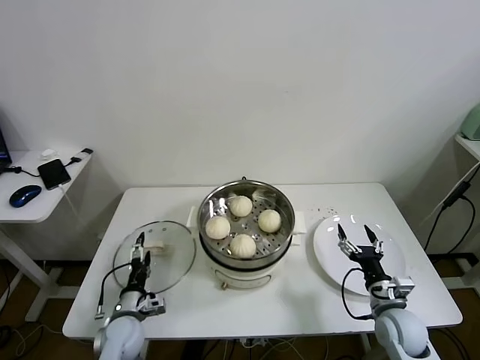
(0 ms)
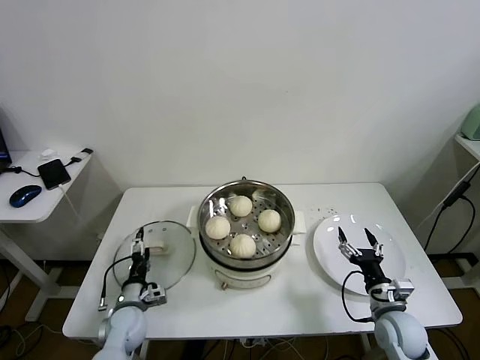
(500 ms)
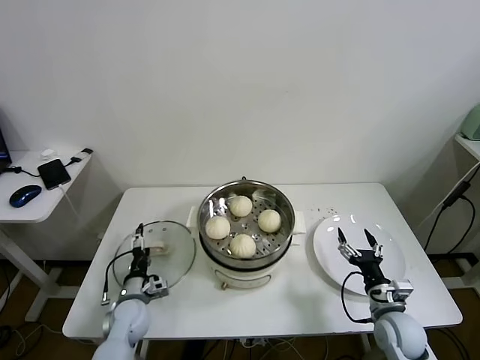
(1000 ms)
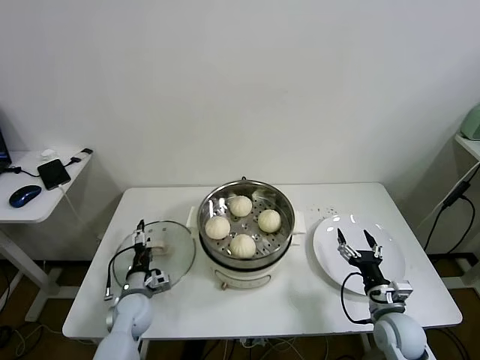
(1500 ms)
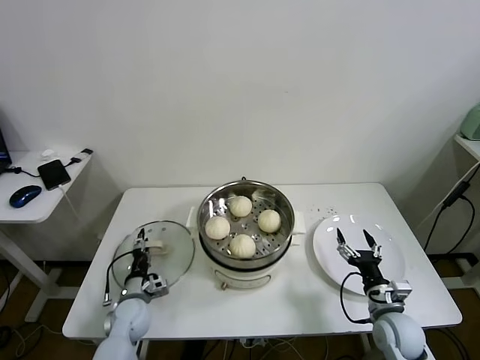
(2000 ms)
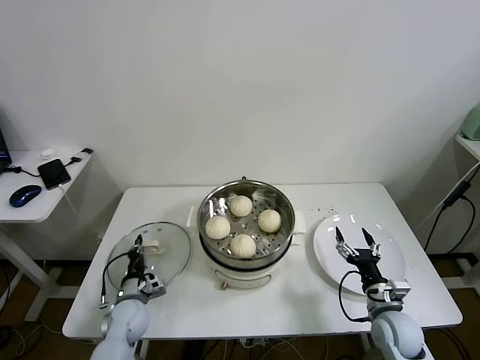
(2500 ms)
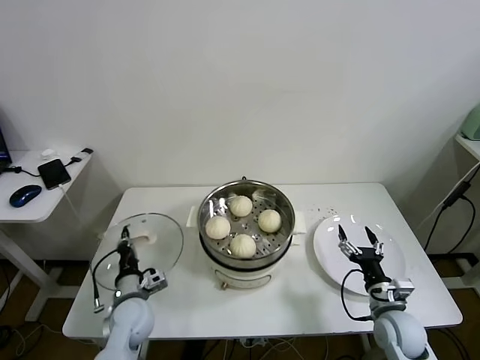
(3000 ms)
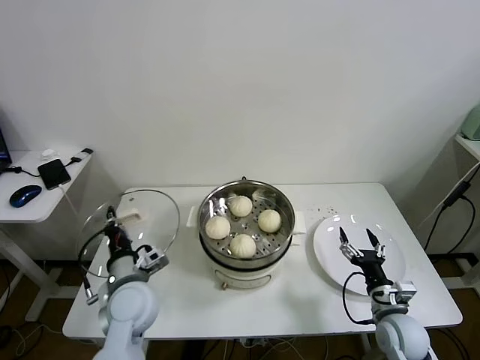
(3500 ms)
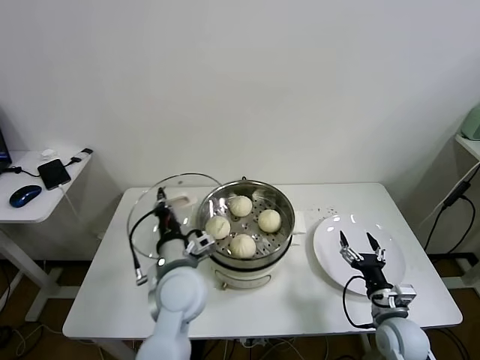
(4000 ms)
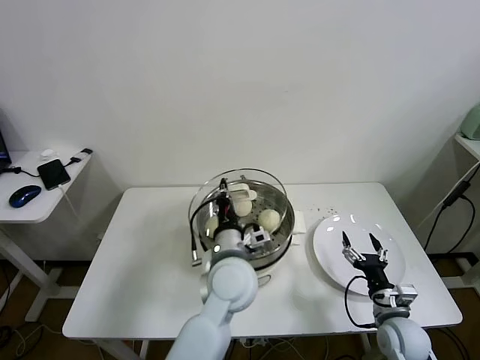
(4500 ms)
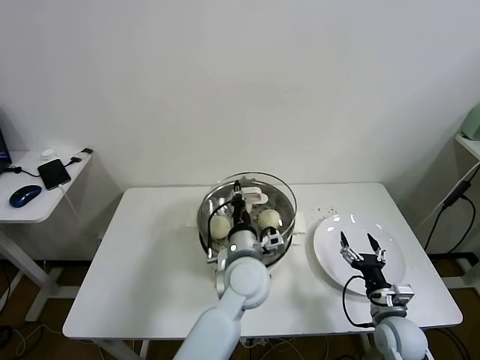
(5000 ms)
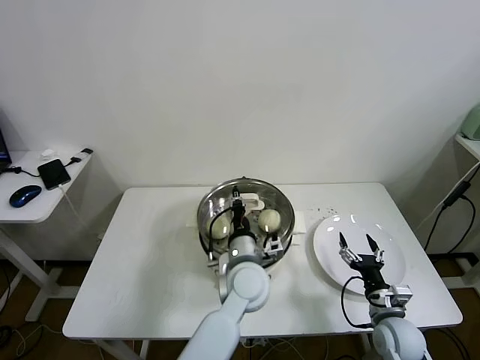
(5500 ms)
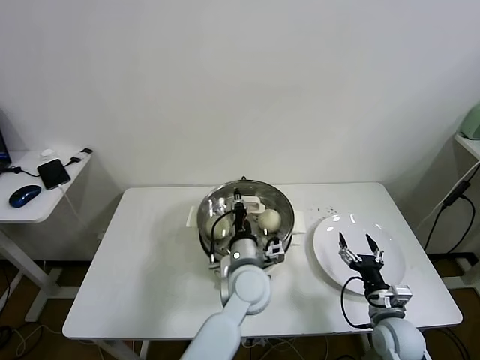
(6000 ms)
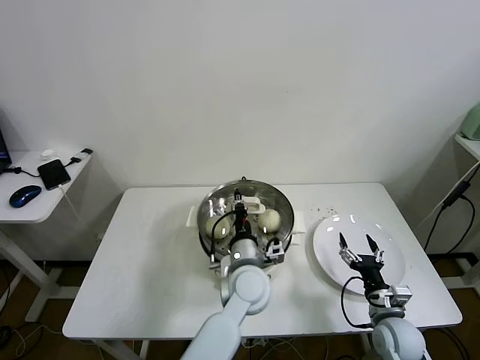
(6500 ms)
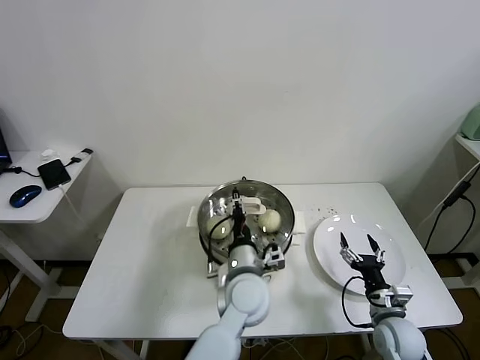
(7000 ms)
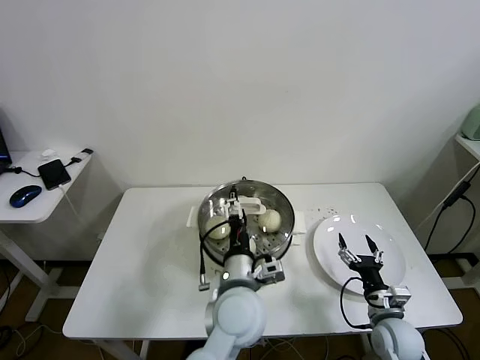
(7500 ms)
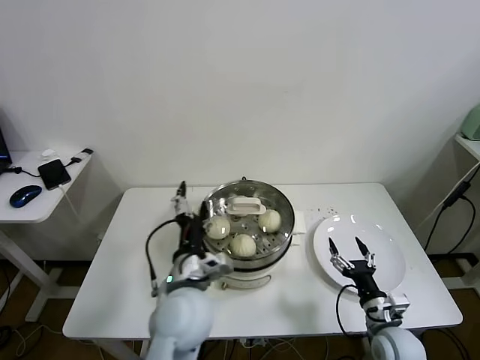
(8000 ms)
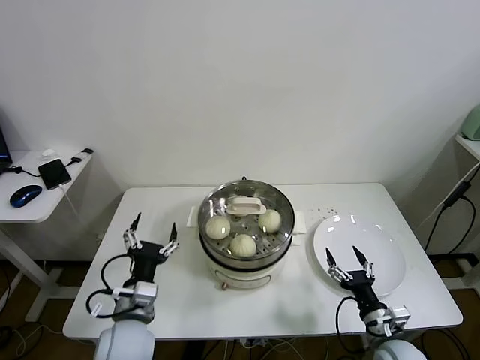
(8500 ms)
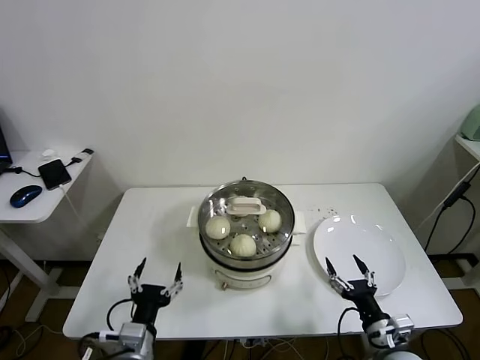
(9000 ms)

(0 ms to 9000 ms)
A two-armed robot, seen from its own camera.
Task of the whole recording: take steamed baozi put them in steamer.
Step, 0 ms - 2000 ms: Grasp the pot lid with left gripper.
Step, 2500 ms - 6500 ms: Place the pot lid on the steamer with left gripper.
0 ms - 2000 ms: The left gripper moves roughly 5 cm, and closes.
2000 ms - 4500 ms: The left gripper heads to the right and upward, covering approximately 35 cm, and closes up.
4500 ms - 7000 ms: The left gripper goes roughly 5 cm downward, and opens up.
7000 ms - 9000 ms: The left gripper is displaced to the left and backward by about 25 cm, and opens; the right gripper is displaced backward by approximately 5 cm.

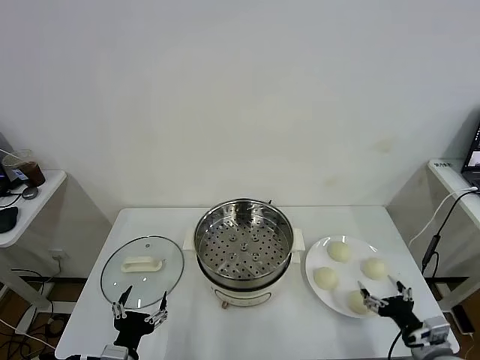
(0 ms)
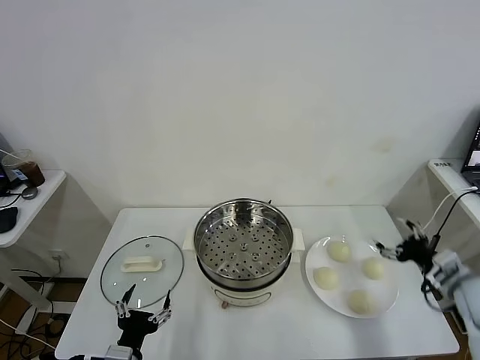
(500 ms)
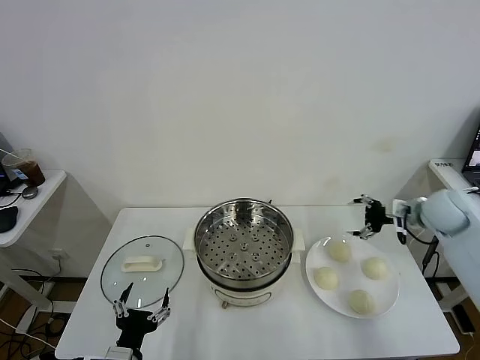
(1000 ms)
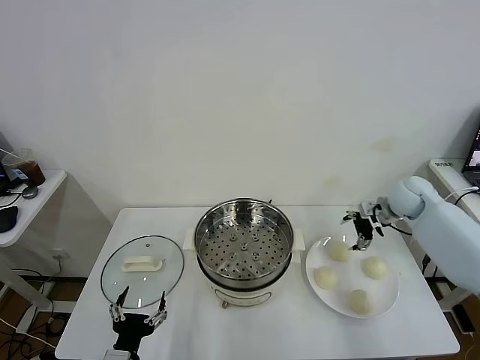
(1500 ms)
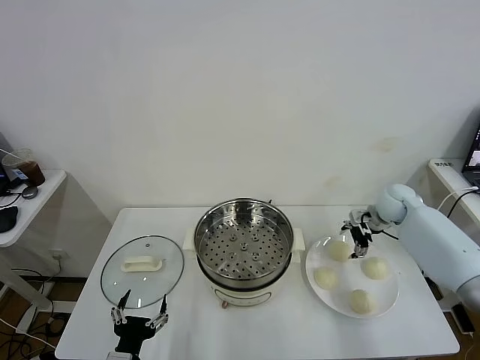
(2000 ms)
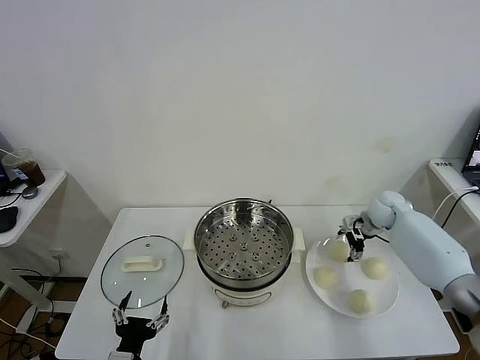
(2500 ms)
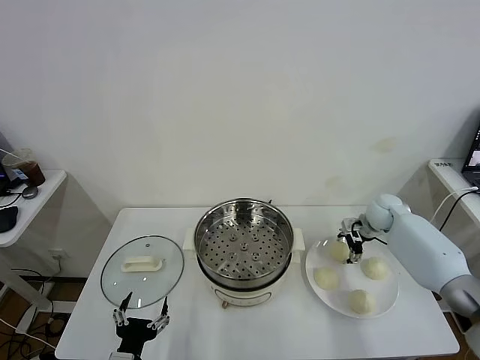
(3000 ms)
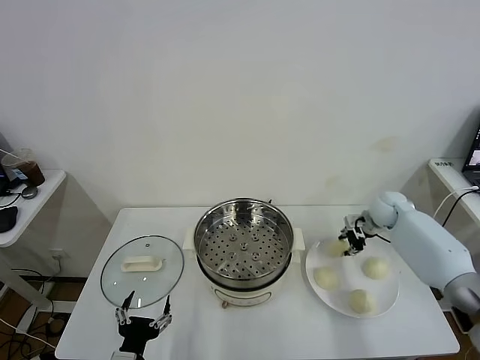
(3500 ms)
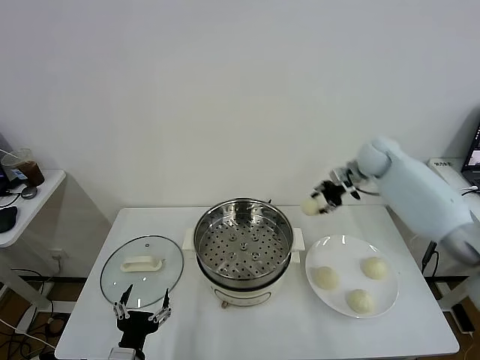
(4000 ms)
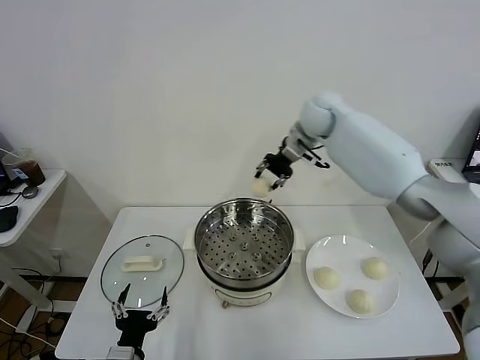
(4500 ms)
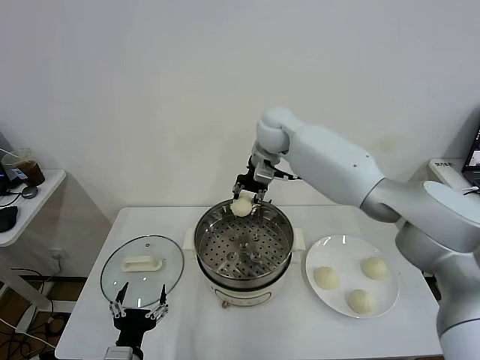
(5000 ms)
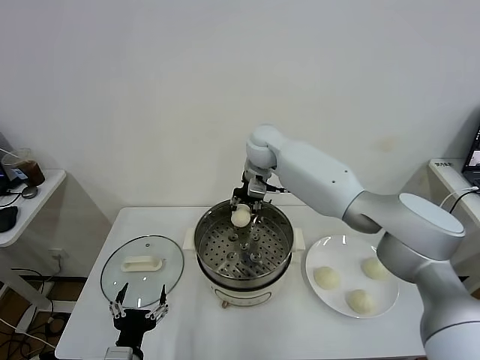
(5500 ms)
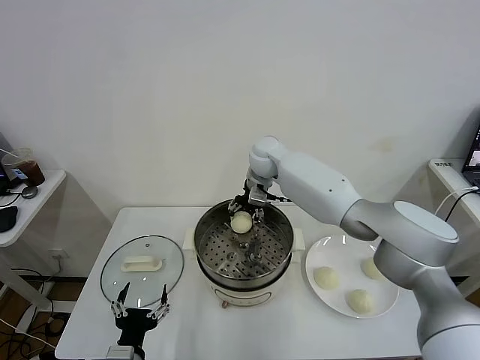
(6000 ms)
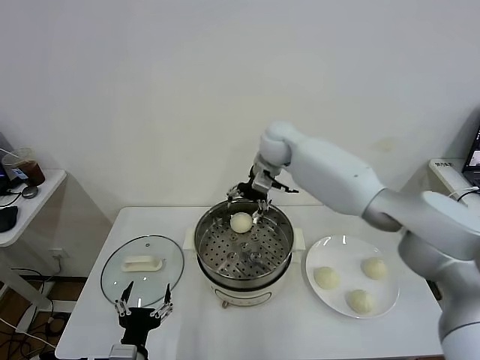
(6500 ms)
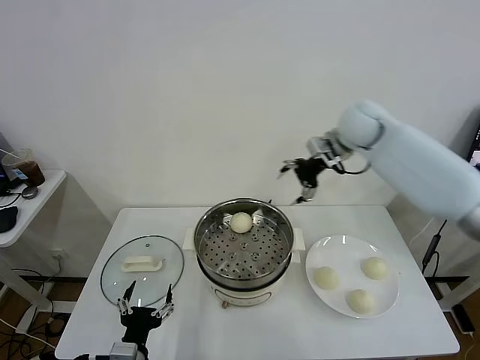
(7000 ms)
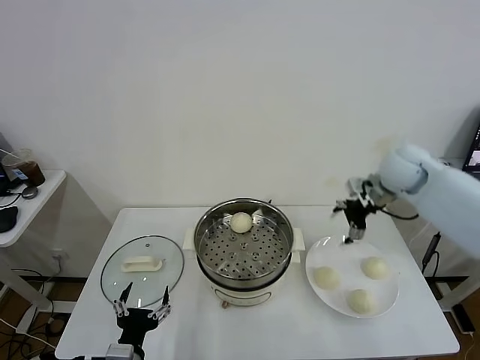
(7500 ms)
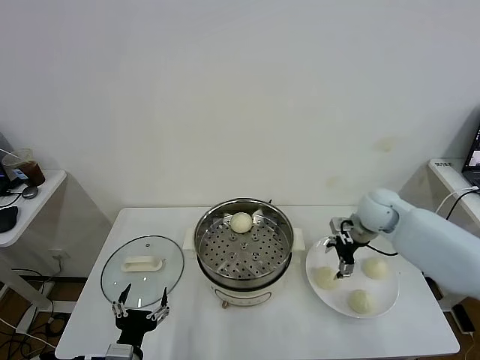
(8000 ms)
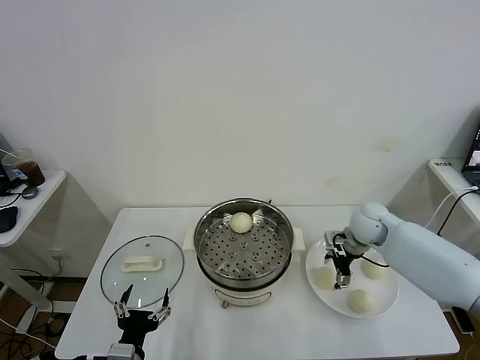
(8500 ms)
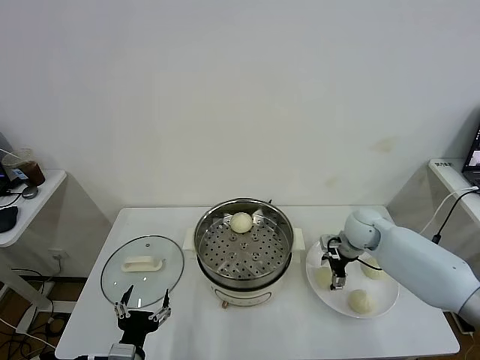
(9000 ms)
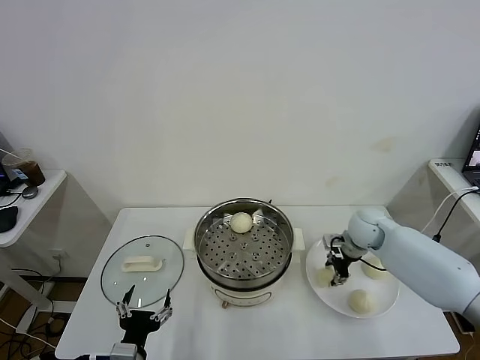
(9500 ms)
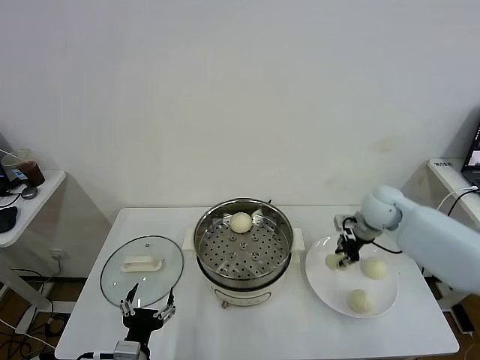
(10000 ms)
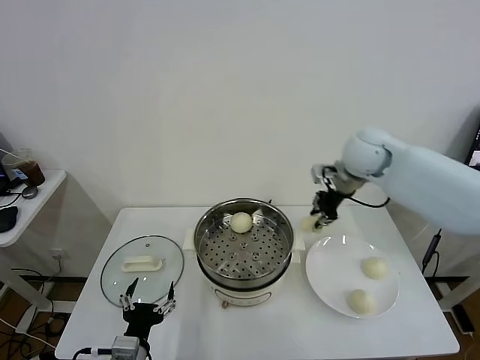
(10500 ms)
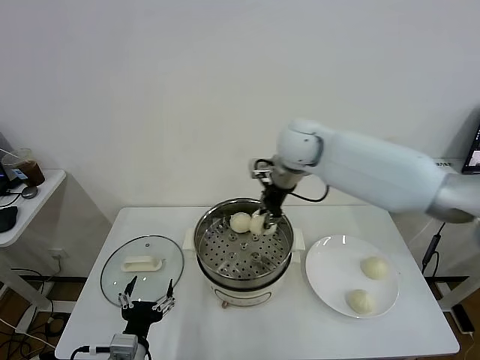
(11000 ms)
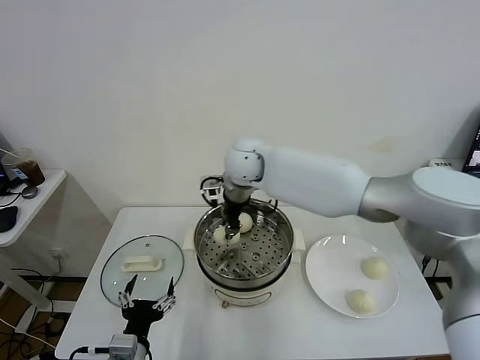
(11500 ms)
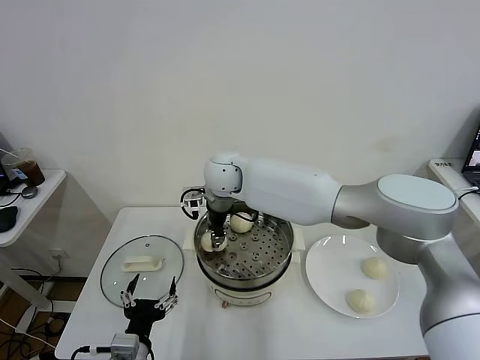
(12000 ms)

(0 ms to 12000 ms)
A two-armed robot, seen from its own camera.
Task of the whole recording: take steamed baozi put them in steamer.
Step, 0 ms - 3000 ms: Grasp the baozi in the plate with right gripper.
Step, 3500 ms - 6000 ms: Place the baozi on the steamer with right gripper.
Step, 6500 ms - 9500 ms: Grasp the baozi in the plate with right gripper.
2000 ms - 4000 ms: The right gripper heads upward, to the left and forward, covering some 20 cm, and closes its fingers.
4000 ms - 6000 ms: The right gripper shifts some 20 cm to the left, and opens up.
6000 ms - 8000 ms: The right gripper travels to the right and backward by some 30 cm.
8000 ms - 10000 ms: The right gripper moves about 5 cm, and closes its fingers.
10000 ms - 12000 ms: The right gripper shifts about 35 cm to the left, and opens up.

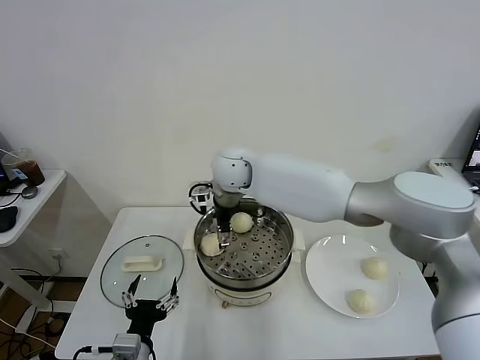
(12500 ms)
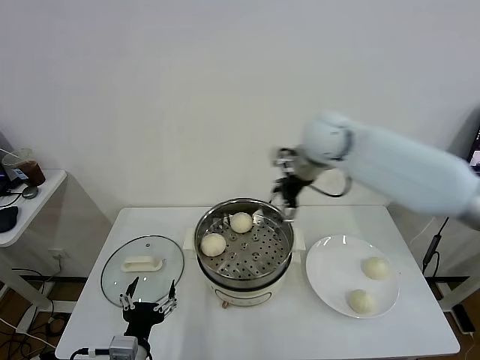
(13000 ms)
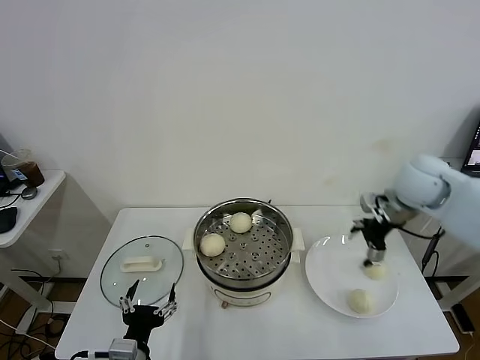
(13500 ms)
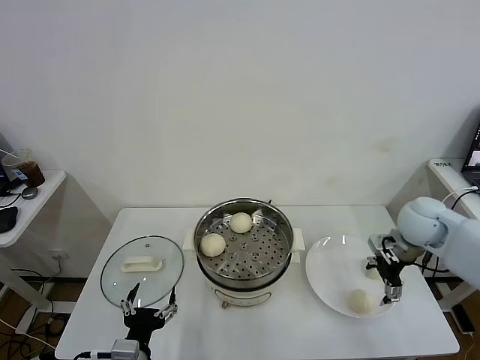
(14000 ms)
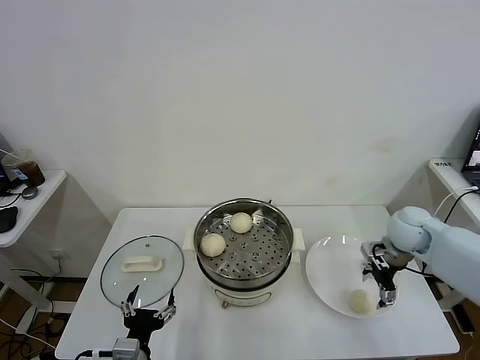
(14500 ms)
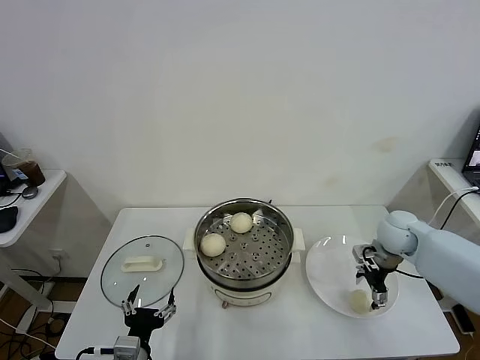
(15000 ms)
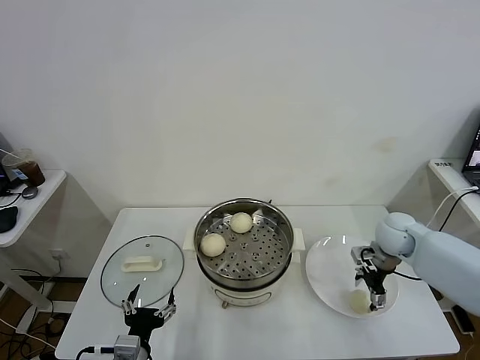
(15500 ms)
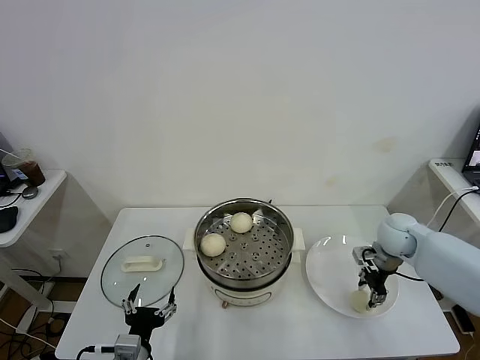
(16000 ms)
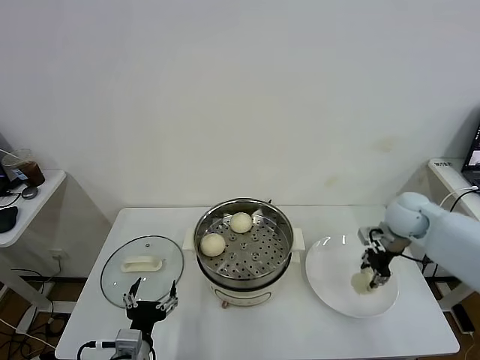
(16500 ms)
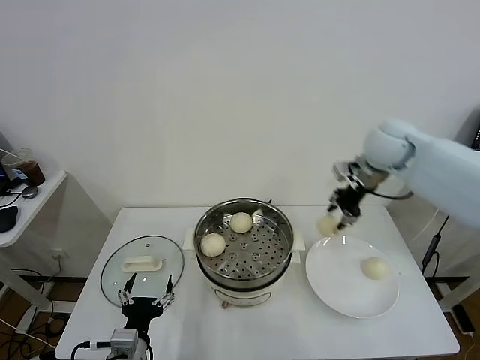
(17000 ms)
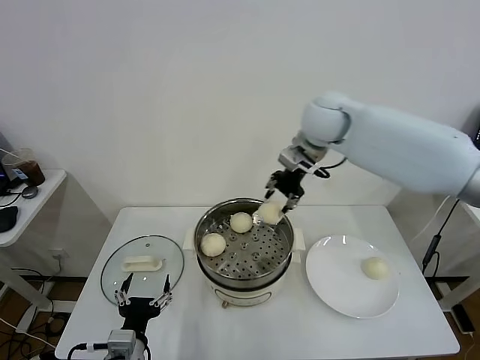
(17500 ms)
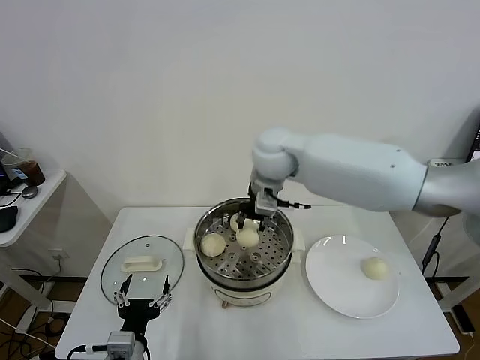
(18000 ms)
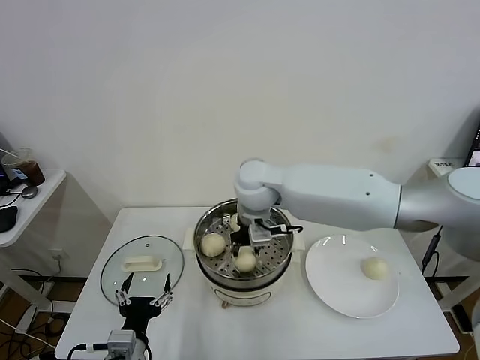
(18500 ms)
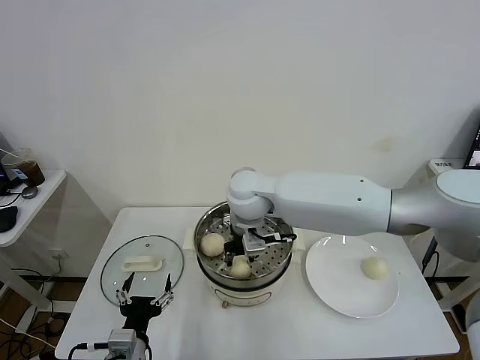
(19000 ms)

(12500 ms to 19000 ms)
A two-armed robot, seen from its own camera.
Task of the whole recording: take steamed baozi put them in steamer.
Step, 12500 ms - 16000 ms: Grasp the baozi in the plate with right gripper.
12500 ms - 14500 ms: The right gripper moves to the right, about 40 cm.
14500 ms - 17000 ms: The right gripper is displaced upward, to the left and forward by approximately 25 cm, and closes up.
17000 ms - 19000 ms: The right gripper shifts roughly 25 cm to the left.
